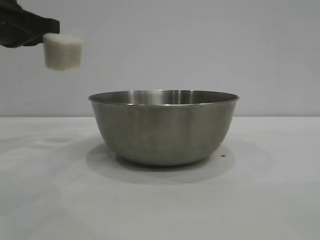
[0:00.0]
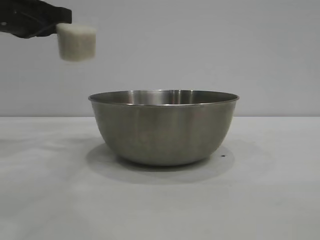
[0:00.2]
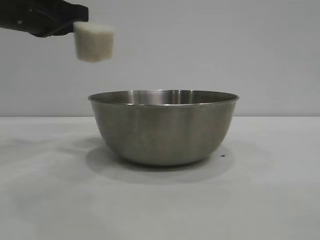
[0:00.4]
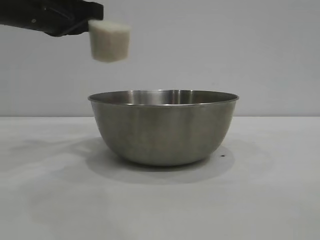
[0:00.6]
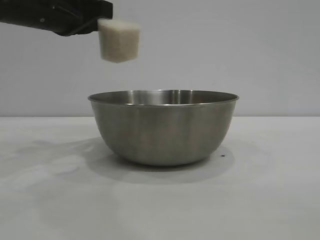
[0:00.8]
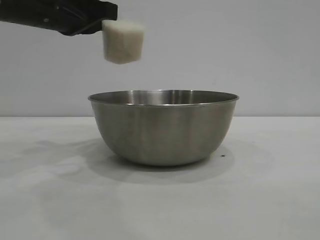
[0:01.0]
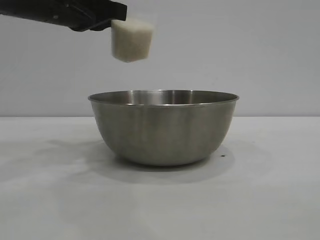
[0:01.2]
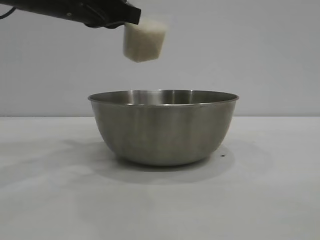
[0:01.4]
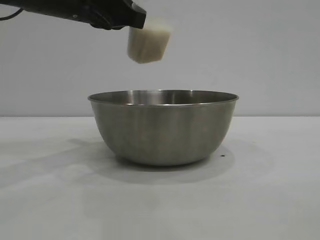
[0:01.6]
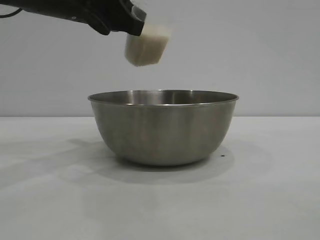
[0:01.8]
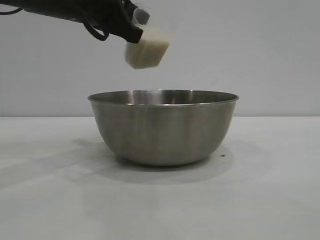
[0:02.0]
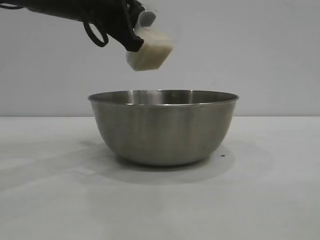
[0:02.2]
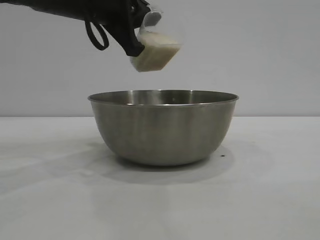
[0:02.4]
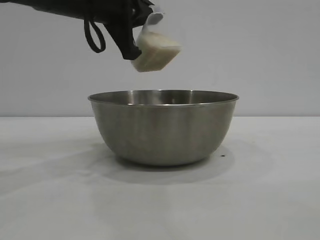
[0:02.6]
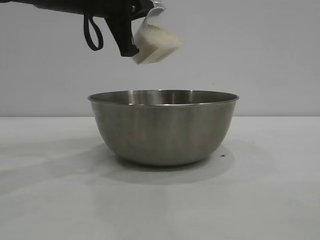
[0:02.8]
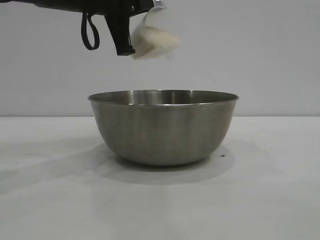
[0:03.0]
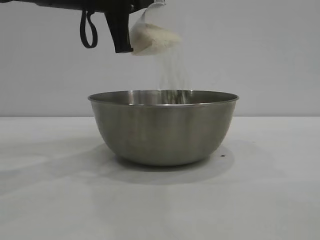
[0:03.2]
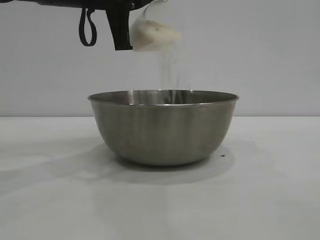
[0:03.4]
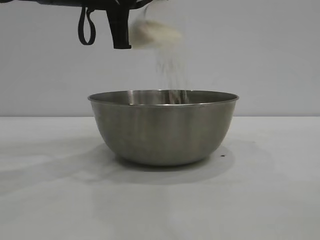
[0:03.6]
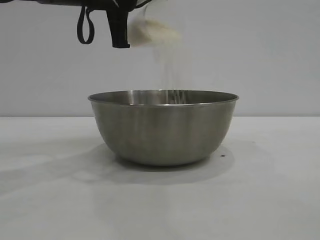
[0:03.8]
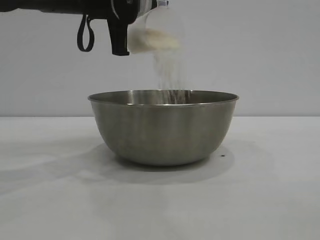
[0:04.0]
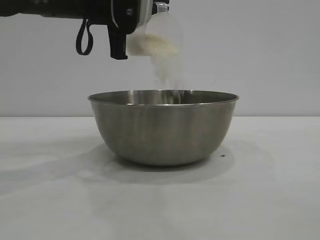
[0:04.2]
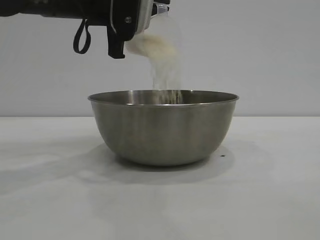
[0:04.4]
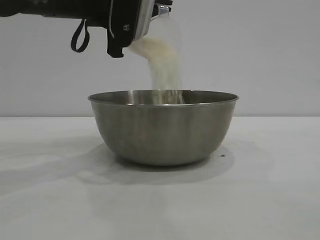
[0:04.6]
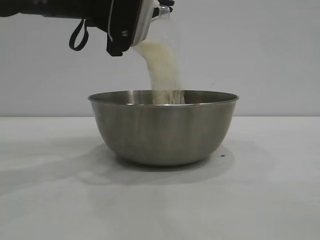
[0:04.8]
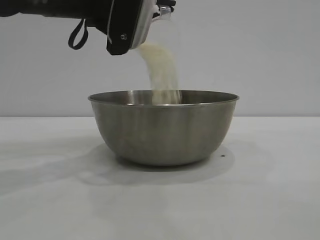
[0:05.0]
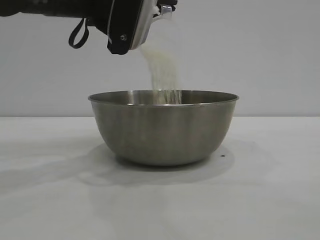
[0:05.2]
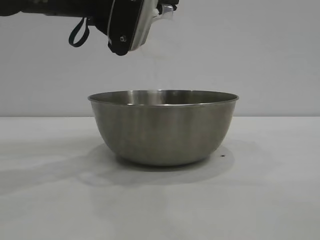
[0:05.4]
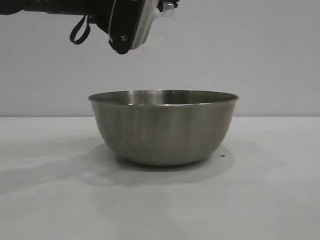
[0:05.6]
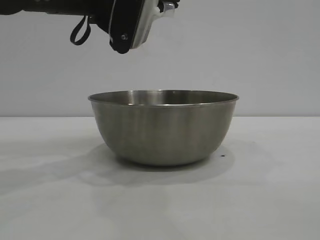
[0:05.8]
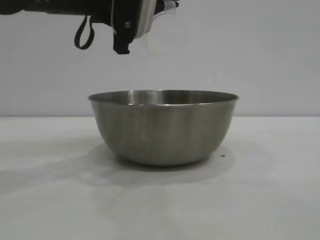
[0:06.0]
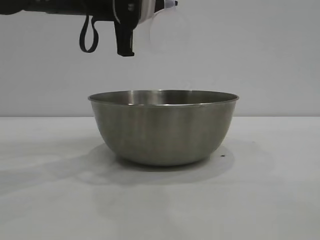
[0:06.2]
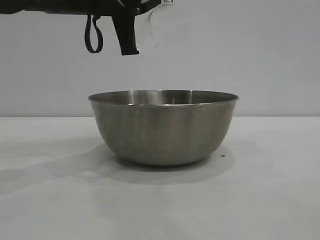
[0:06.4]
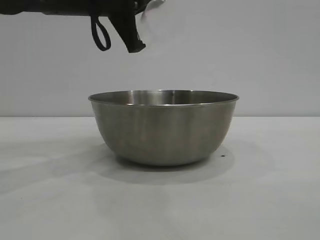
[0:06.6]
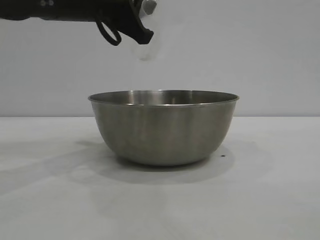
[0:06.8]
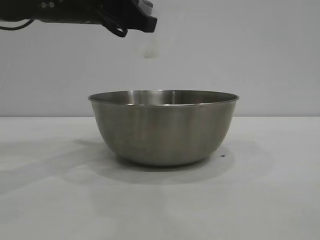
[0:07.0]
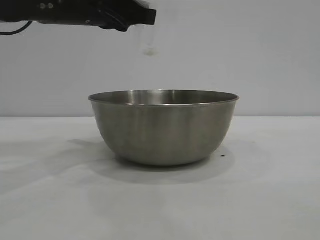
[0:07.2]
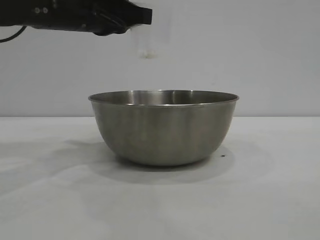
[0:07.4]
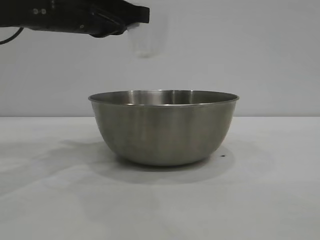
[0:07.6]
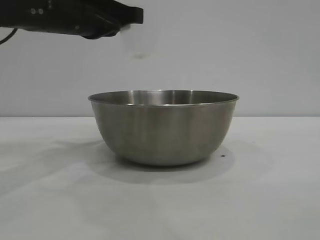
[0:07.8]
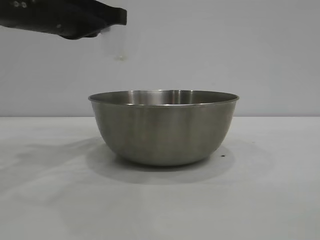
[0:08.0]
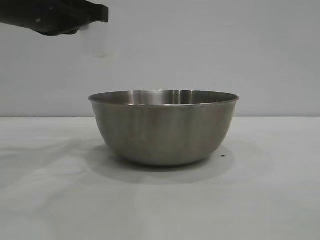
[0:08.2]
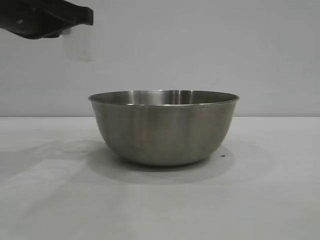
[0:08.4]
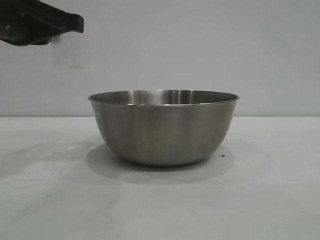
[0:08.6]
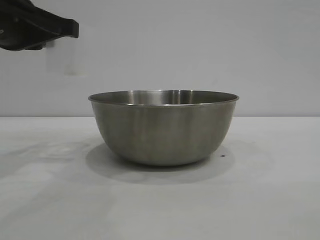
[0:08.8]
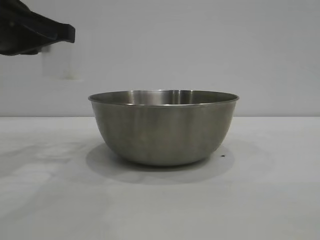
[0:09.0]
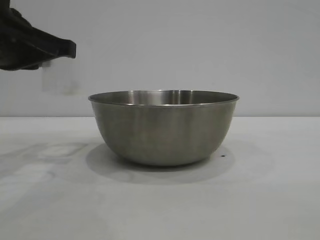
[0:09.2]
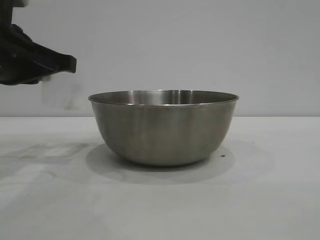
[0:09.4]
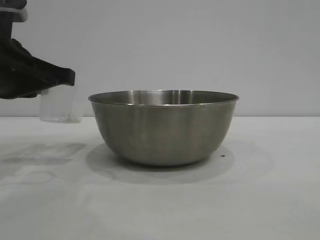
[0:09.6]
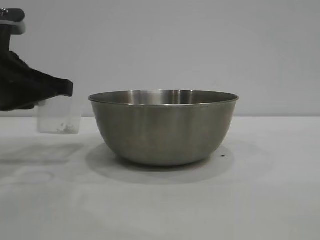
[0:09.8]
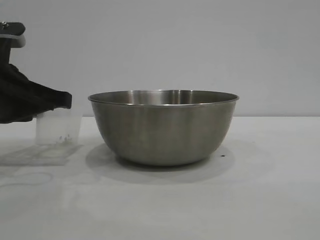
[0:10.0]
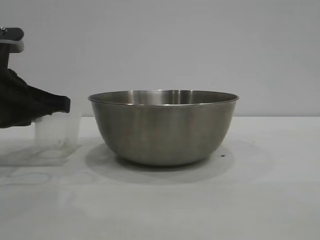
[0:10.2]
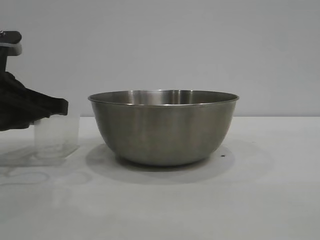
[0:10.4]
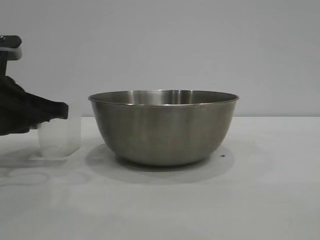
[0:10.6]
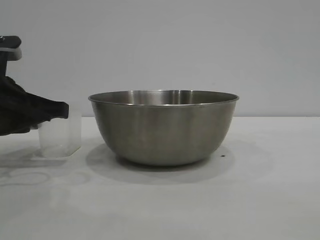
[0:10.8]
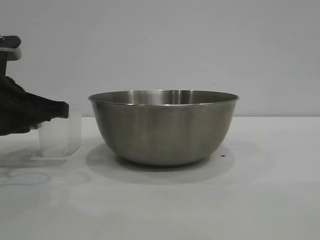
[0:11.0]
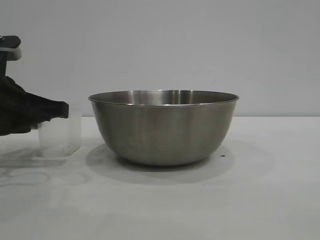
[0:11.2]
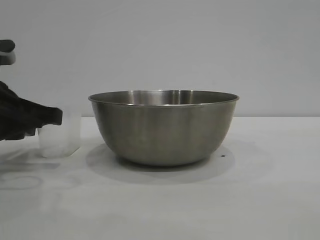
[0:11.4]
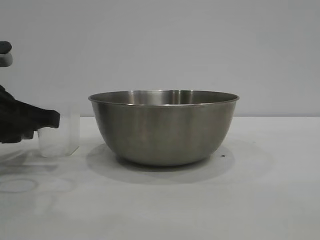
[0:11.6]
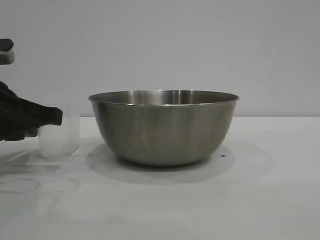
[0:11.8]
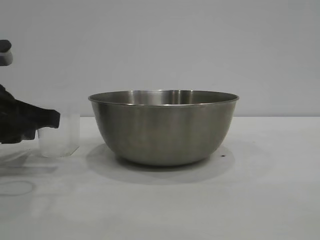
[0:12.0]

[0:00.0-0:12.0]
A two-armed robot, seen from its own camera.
Task of the whole recording: the right gripper grasp the rice container and place it in the center of the table, the left gripper grasp the rice scoop and pour the rice into the rice container.
Step, 0:00.0 to 0:05.4: Pour the rice from the cup into the bowl with the left gripper.
